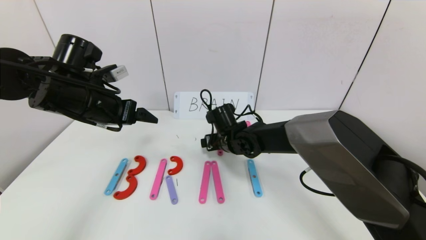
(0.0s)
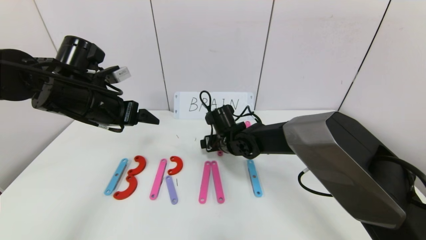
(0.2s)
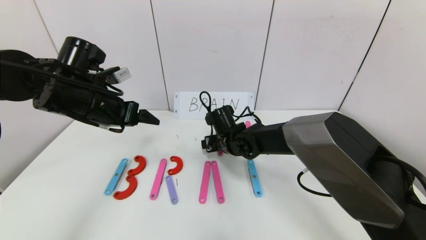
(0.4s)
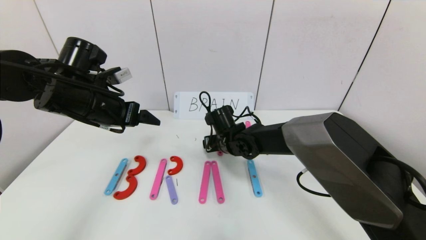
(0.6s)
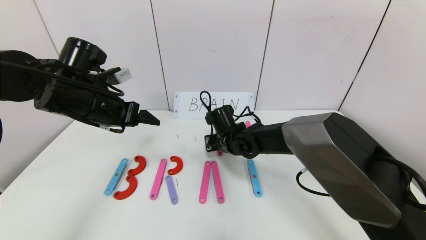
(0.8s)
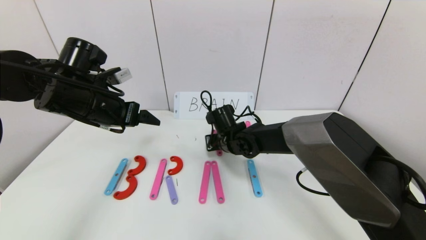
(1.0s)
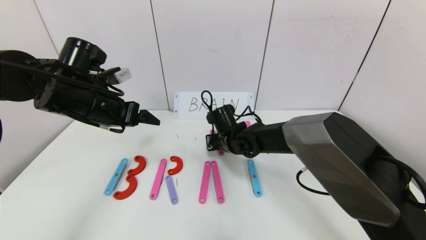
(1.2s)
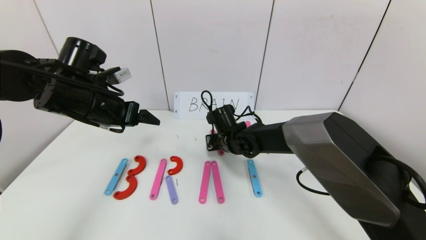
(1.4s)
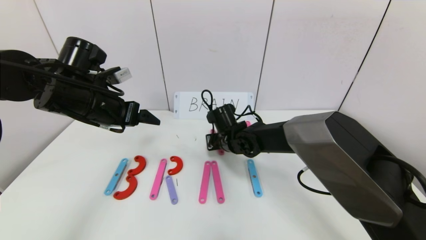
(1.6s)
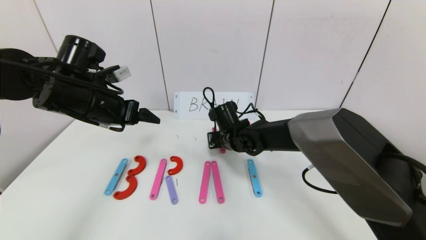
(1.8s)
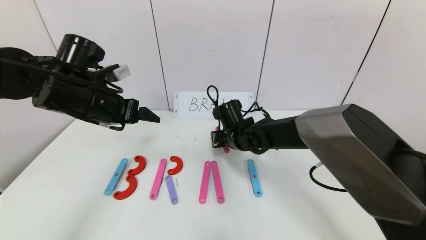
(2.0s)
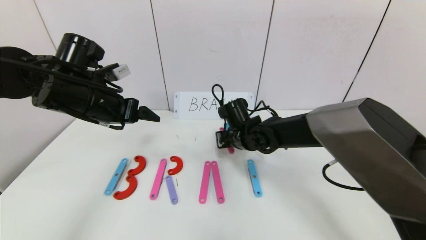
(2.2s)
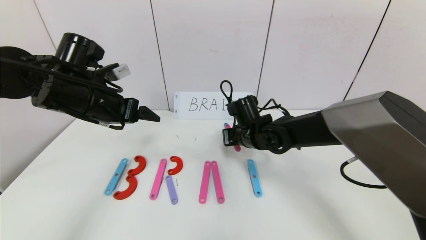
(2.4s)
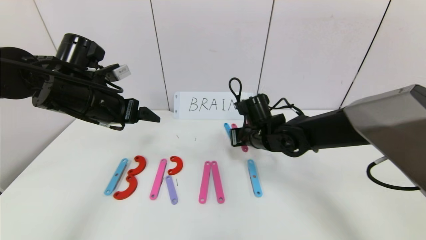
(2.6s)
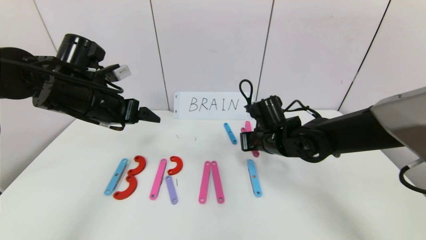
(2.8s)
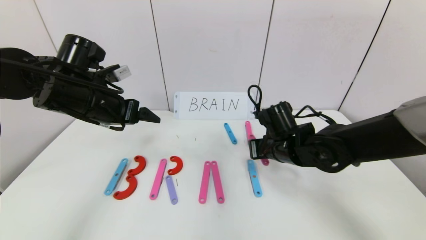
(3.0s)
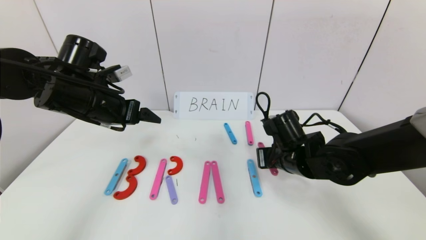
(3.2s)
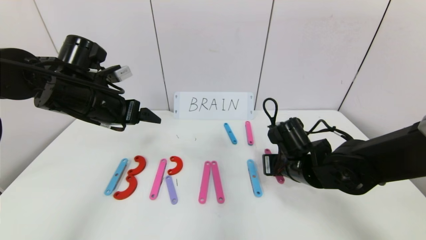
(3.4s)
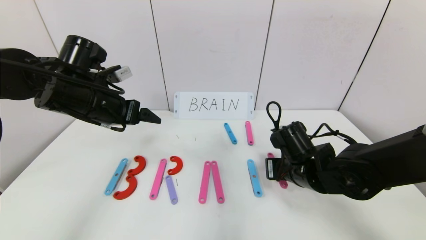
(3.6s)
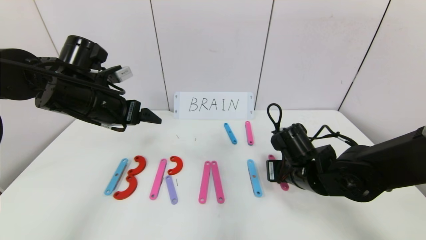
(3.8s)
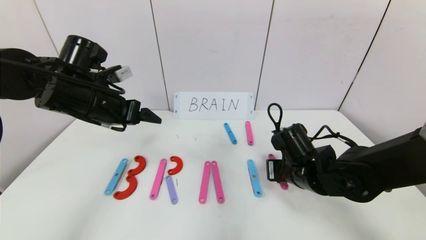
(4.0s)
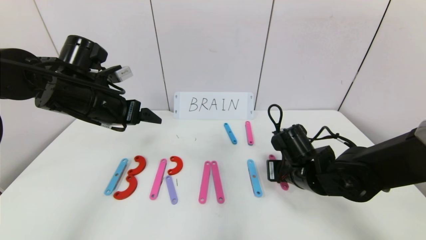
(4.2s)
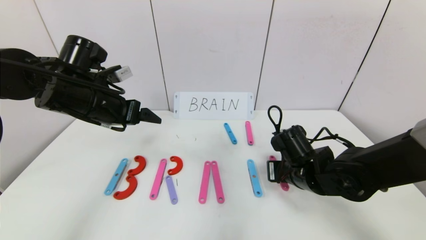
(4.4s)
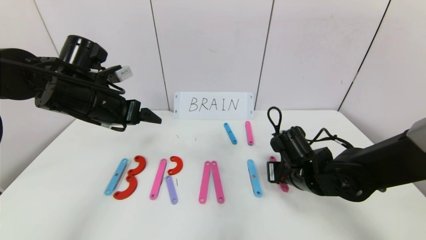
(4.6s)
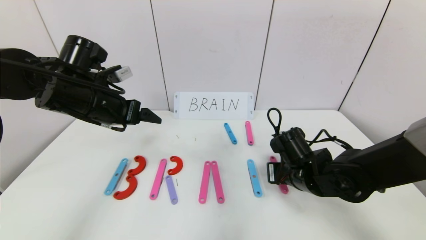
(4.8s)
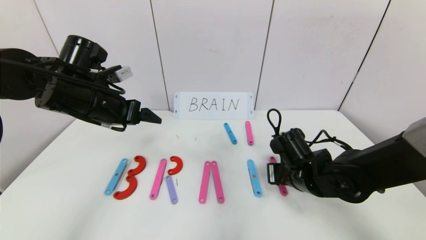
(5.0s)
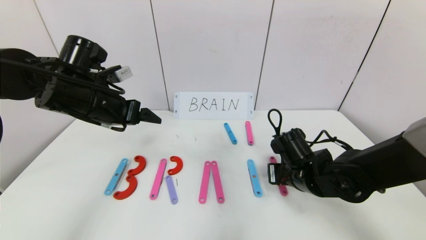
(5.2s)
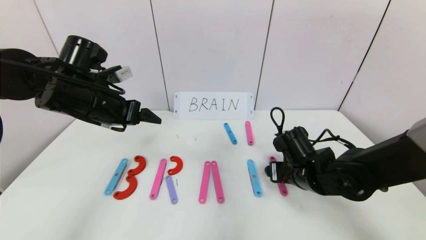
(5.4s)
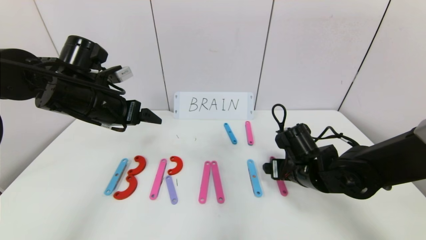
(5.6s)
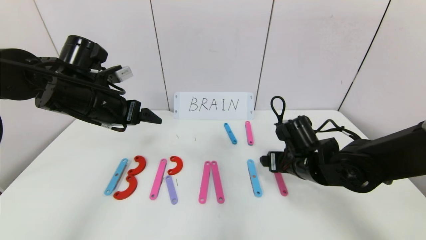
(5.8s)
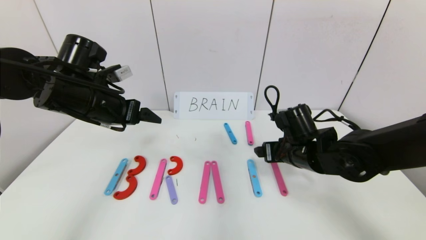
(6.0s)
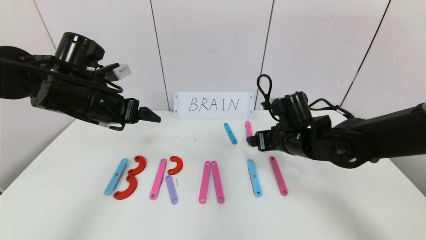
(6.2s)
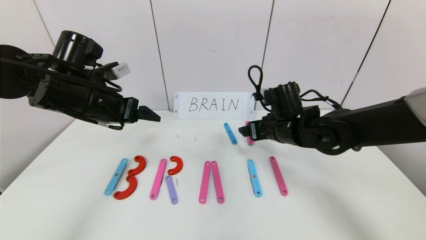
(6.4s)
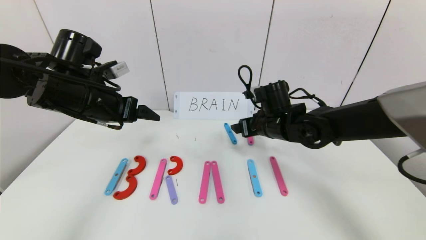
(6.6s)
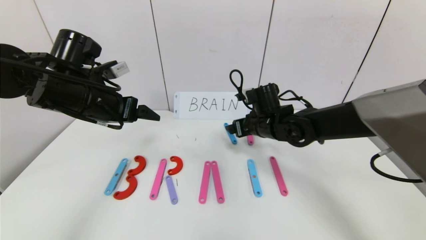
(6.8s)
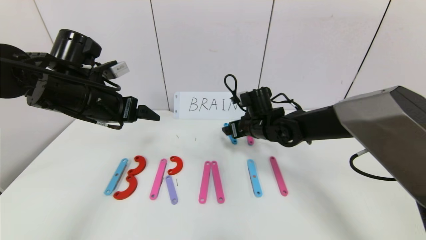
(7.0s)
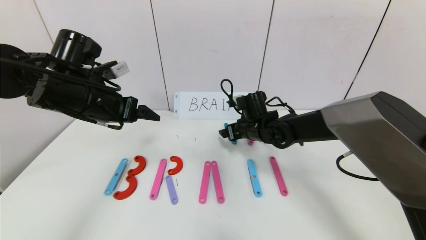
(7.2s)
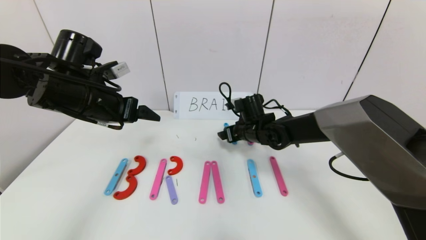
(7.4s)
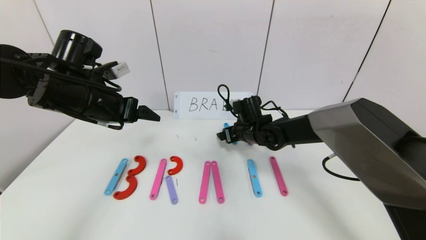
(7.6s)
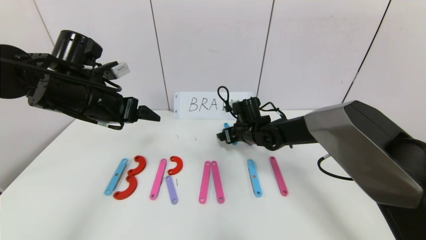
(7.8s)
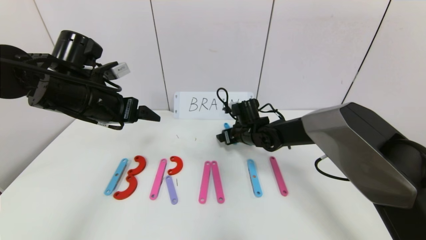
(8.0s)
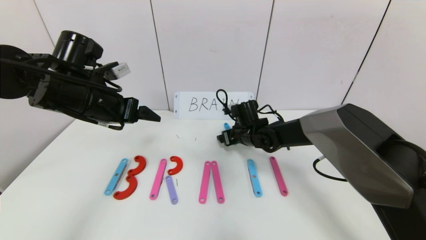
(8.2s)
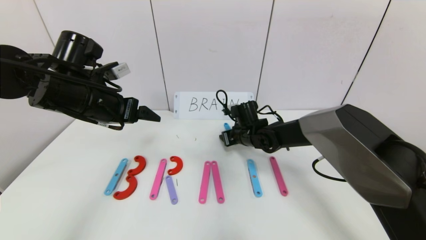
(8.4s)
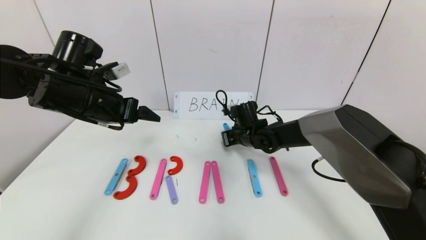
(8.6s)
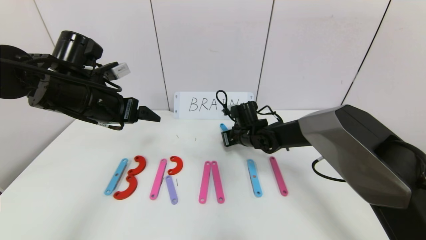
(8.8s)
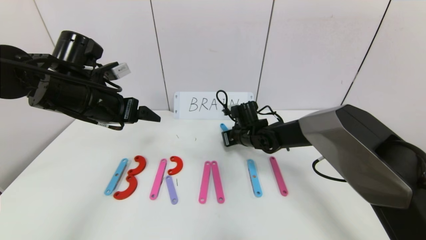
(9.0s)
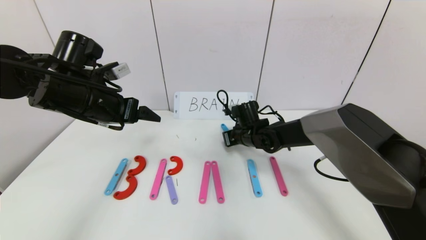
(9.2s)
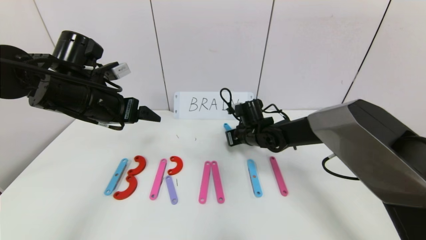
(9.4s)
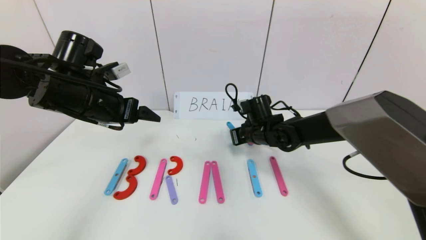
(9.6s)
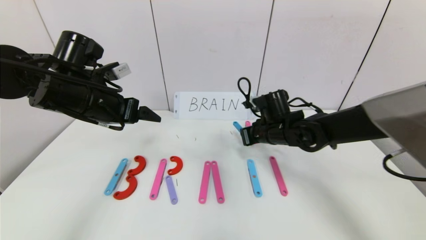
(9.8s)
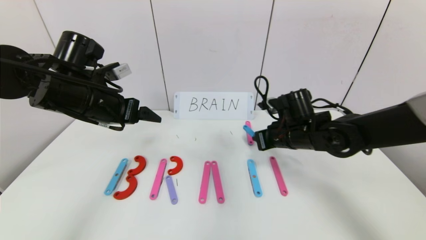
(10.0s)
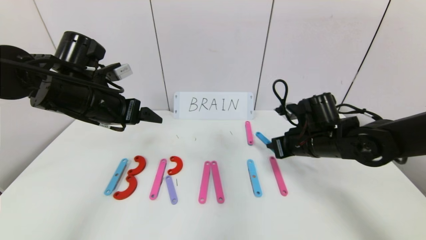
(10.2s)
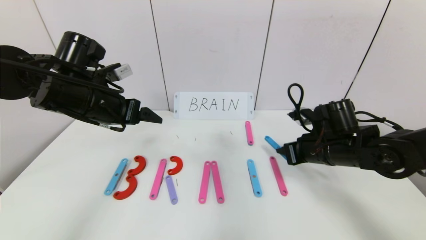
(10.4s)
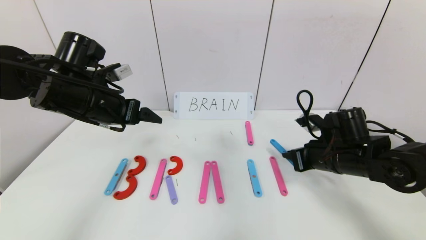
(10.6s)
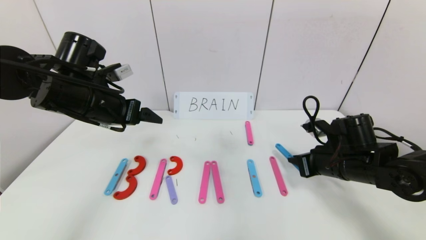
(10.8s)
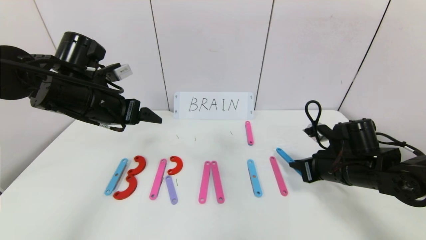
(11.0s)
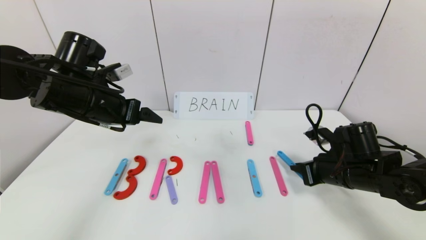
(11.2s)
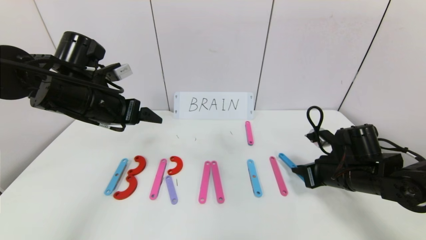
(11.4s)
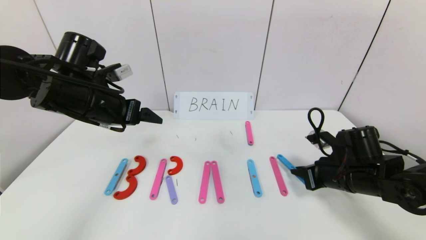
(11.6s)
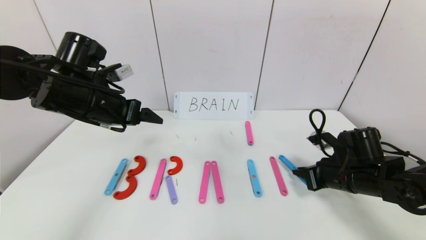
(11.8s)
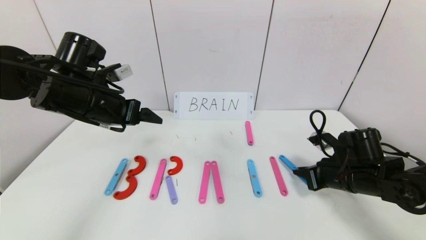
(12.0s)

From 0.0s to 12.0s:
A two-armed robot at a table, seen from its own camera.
Task of the whole recording: rearrange the word baai as brain.
From 0.0s to 1.6s: The right gripper closes.
From 1.6s to 3.0s: The right gripper travels to the right and backward by approximately 15 cm.
From 3.0s to 4.4s: The right gripper moves some 5 cm.
From 4.4s to 6.0s: The right gripper opens up.
From 6.0s to 7.6s: The right gripper heads forward and to the left, covering about 15 cm.
From 7.6s to 9.0s: The right gripper closes its fingers.
From 9.0s to 10.4s: The right gripper travels to the right and backward by some 20 cm.
From 10.4s to 12.0s: The right gripper changes place by about 5 cm.

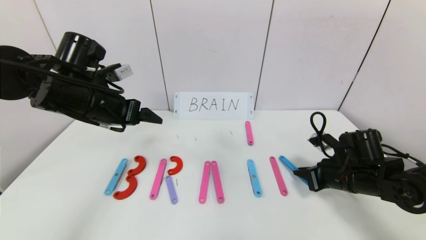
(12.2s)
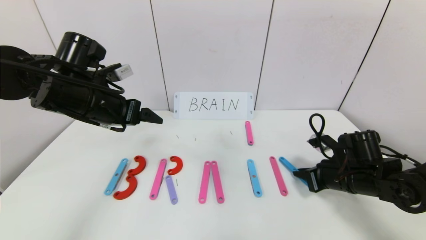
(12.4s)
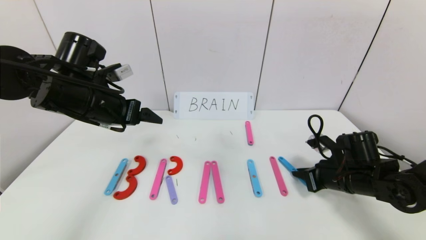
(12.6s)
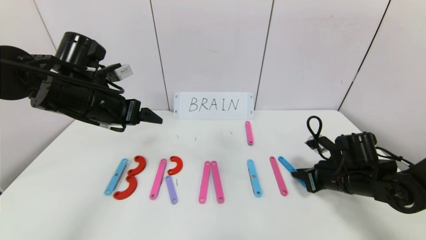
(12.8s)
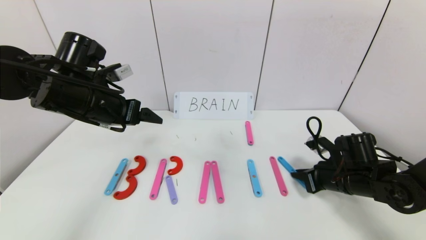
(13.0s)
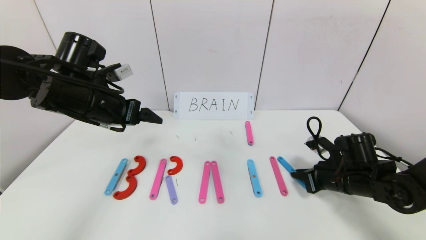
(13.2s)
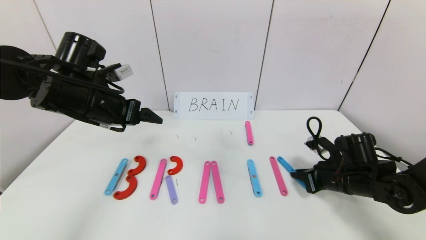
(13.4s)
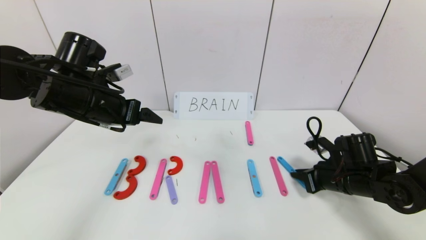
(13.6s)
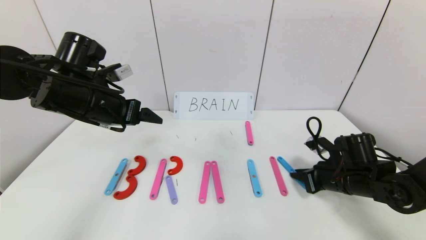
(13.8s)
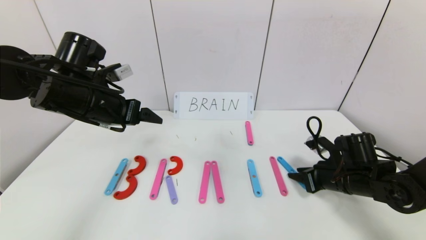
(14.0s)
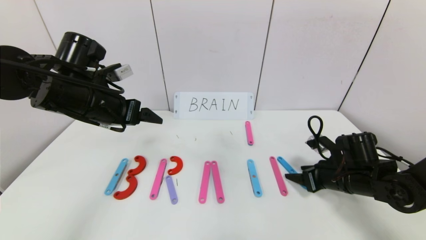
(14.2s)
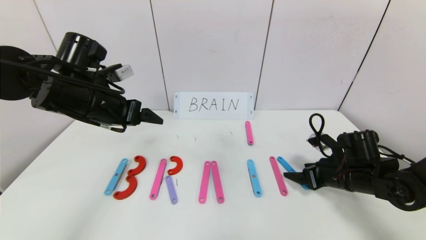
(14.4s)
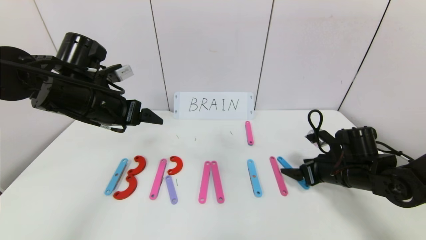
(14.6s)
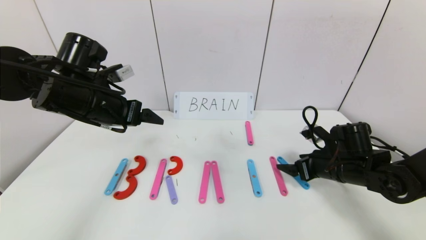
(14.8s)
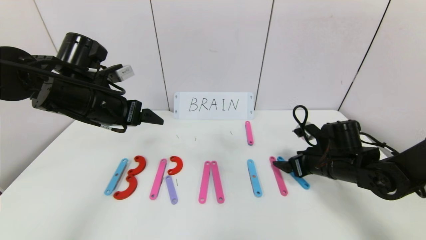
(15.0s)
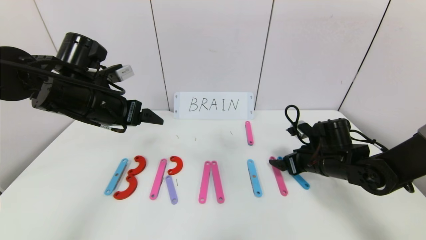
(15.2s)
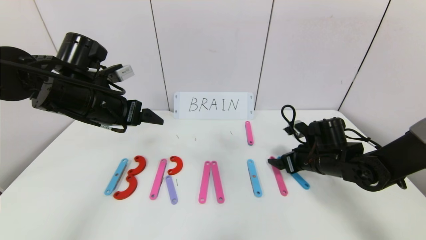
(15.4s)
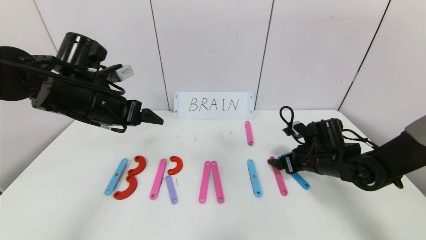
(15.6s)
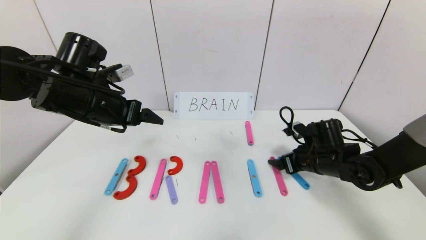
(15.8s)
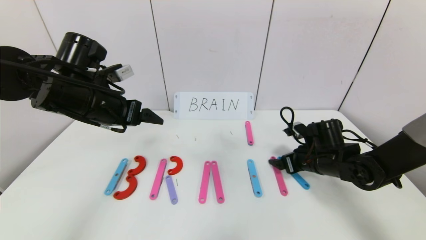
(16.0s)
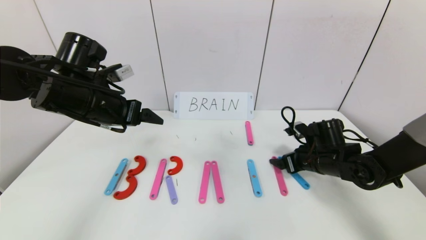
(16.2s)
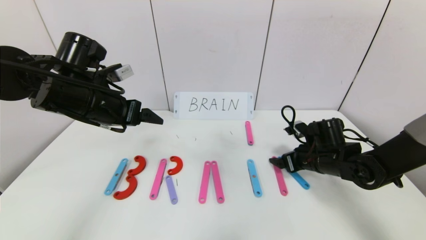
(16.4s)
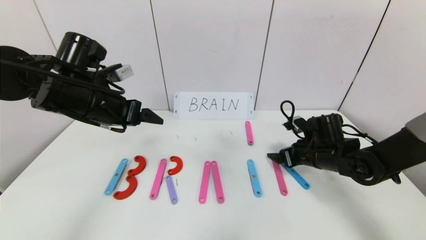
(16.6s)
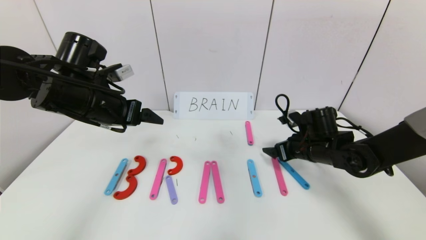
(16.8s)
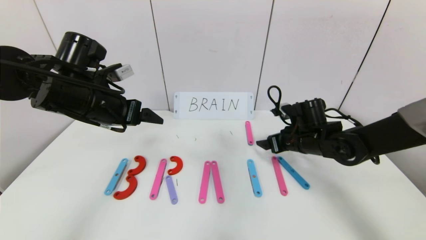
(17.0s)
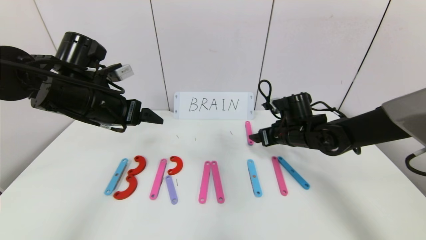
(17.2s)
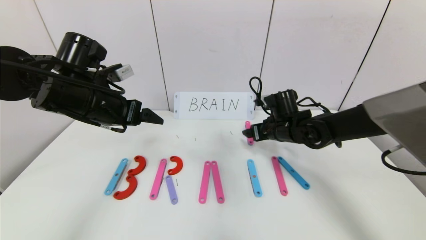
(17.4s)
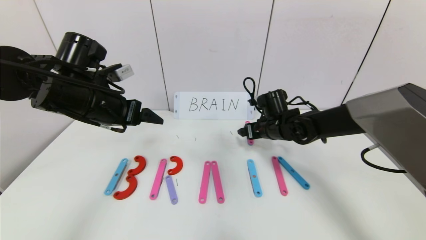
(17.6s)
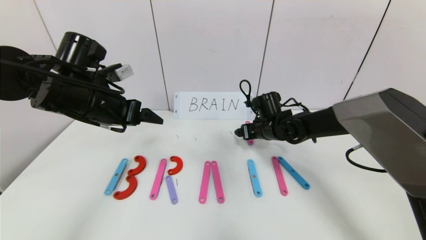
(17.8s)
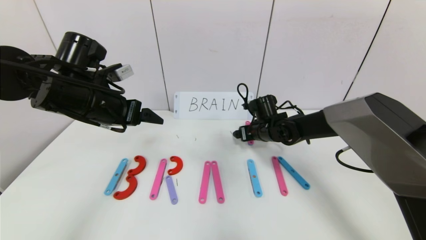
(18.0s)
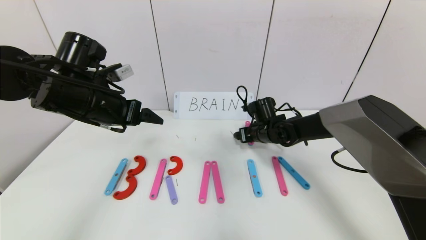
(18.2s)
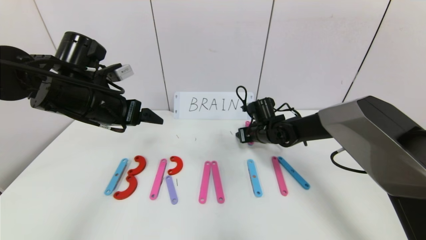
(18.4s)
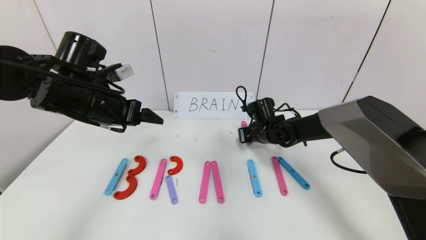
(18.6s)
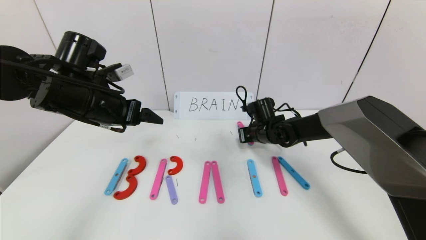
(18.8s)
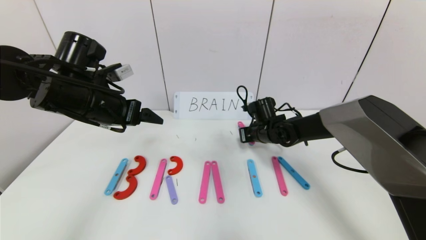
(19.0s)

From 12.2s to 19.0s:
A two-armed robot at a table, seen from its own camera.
Task of the whole recording: rearrange the word baai as brain.
From 12.2s to 13.6s: There are only small adjustments of the grippers.
From 13.6s to 15.0s: The right gripper opens.
From 15.0s to 16.2s: The grippers move only a little.
From 16.2s to 17.6s: The right gripper heads to the left and forward, covering about 15 cm.
From 17.6s to 19.0s: The right gripper closes.
